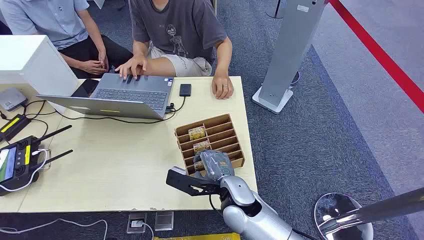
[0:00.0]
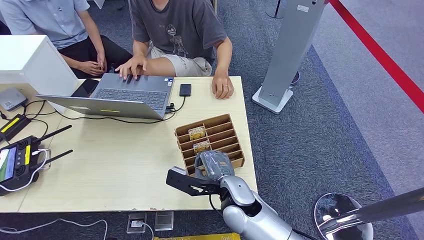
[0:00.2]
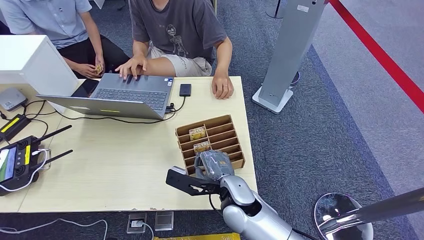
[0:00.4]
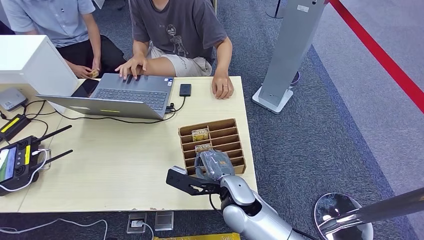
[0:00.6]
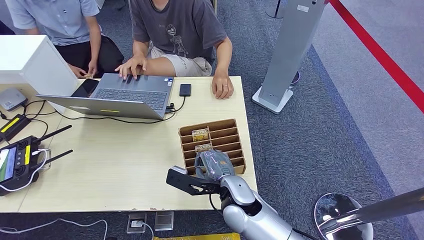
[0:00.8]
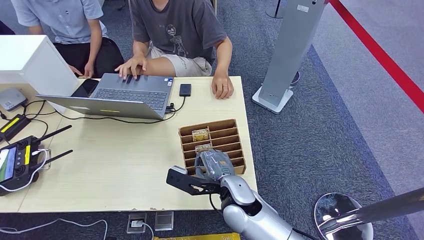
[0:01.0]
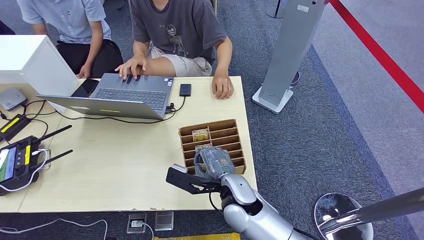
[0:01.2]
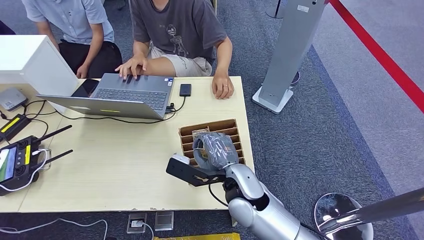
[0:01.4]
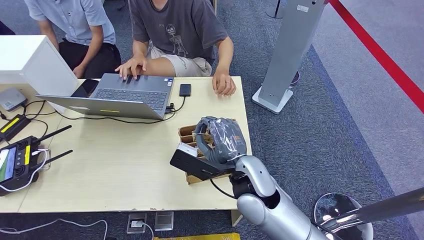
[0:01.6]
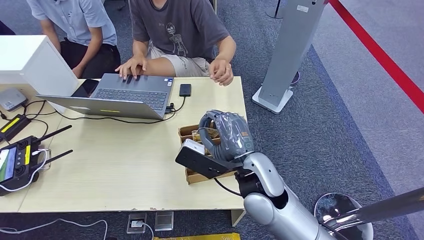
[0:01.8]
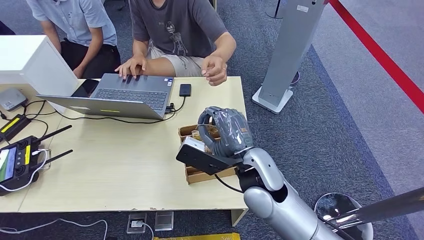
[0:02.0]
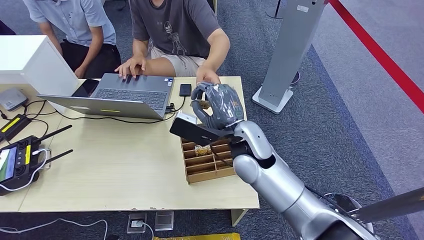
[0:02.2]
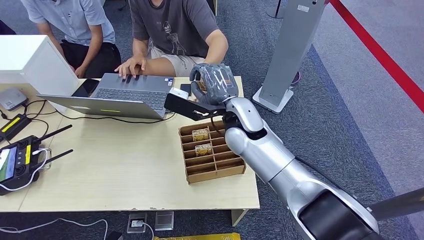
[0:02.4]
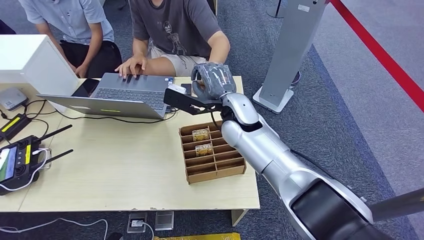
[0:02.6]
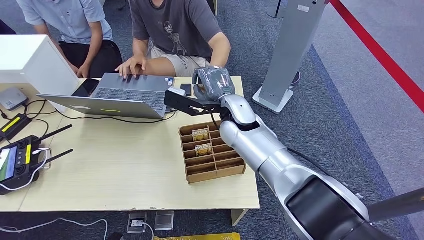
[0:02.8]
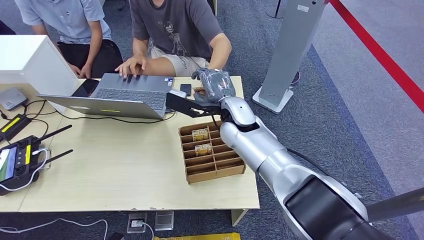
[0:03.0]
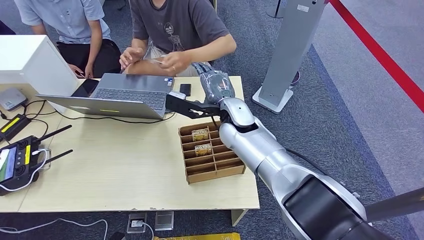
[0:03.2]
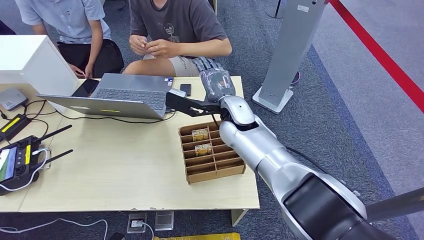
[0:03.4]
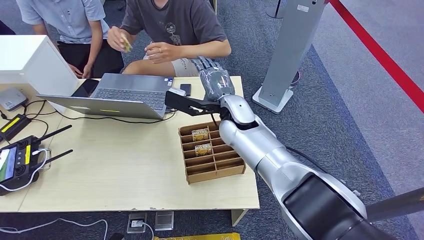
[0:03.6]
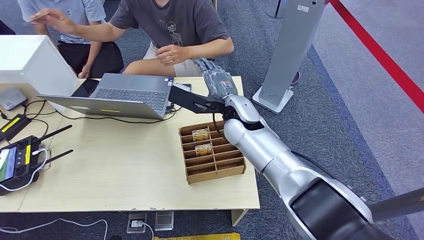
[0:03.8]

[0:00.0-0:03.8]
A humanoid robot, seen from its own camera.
Step, 0:00.0 to 0:01.8: Pick up the key card from the card box.
Step, 0:02.2 to 0:03.8: Hand the key card to the target.
0:01.2 to 0:02.6: The right hand is displaced forward and upward by approximately 20 cm.
0:02.6 to 0:03.8: There are only small adjustments of the hands.
